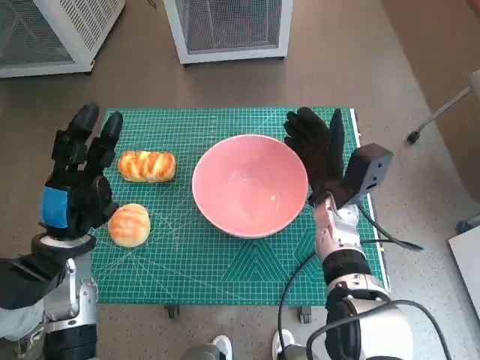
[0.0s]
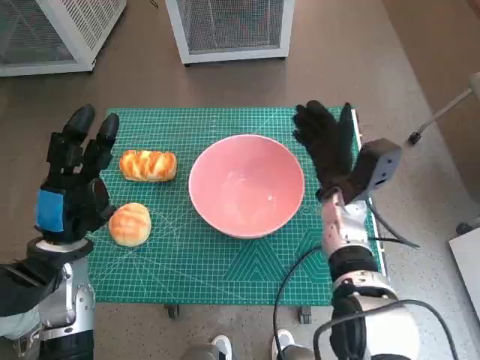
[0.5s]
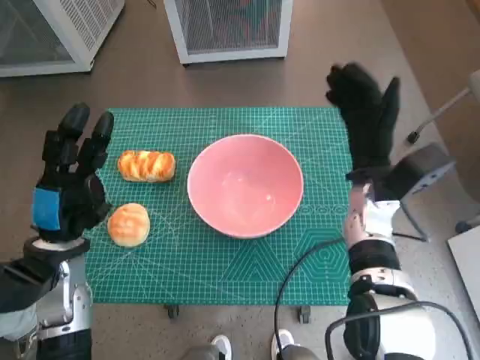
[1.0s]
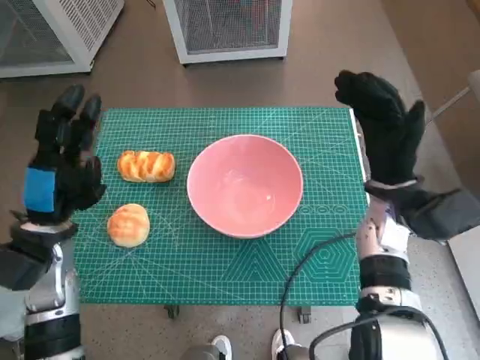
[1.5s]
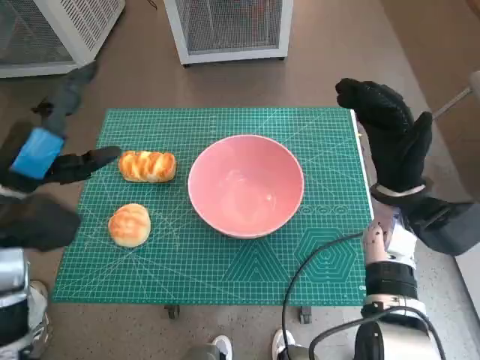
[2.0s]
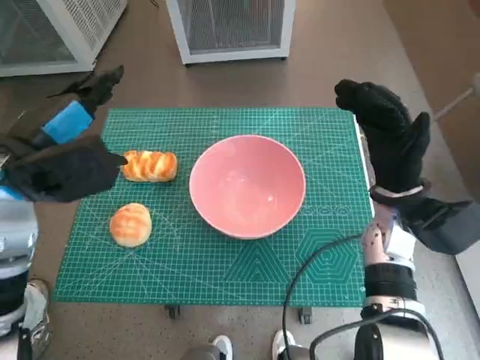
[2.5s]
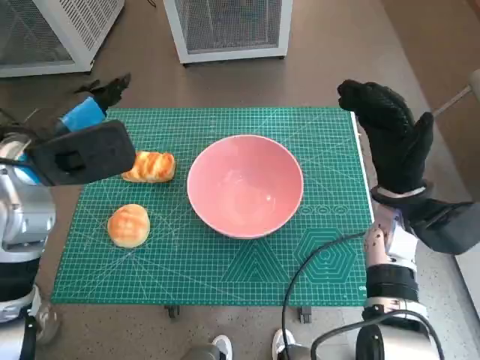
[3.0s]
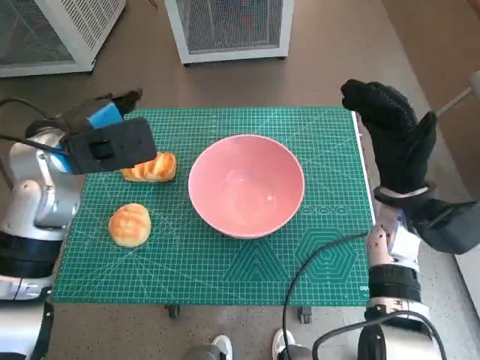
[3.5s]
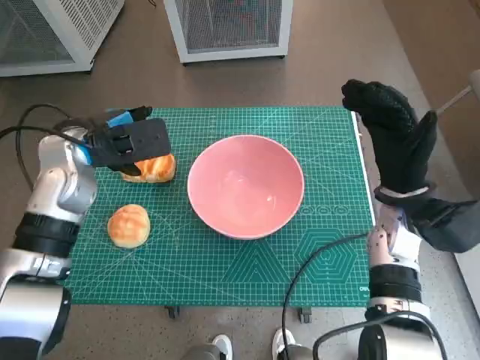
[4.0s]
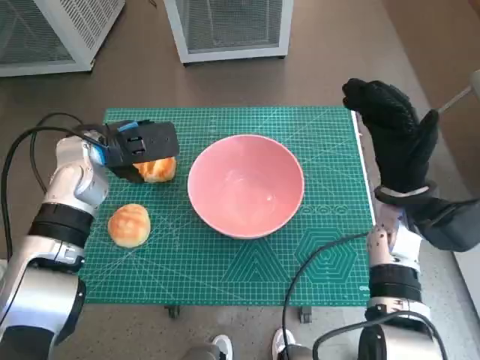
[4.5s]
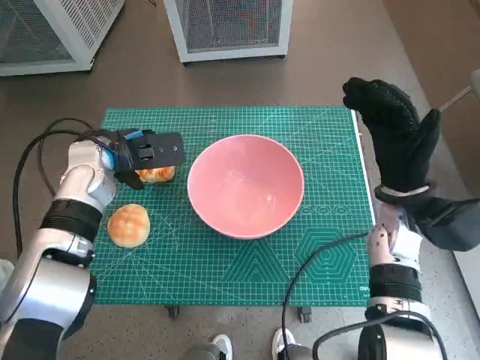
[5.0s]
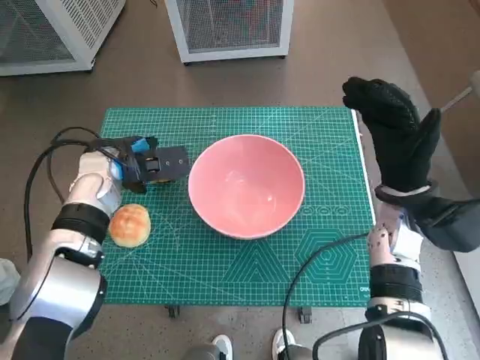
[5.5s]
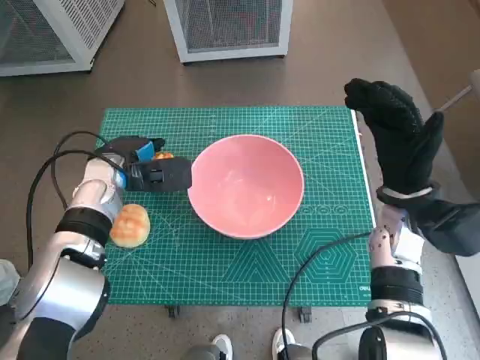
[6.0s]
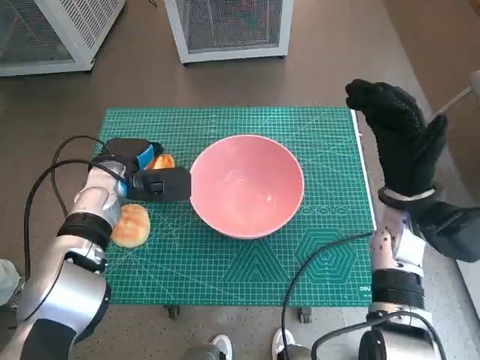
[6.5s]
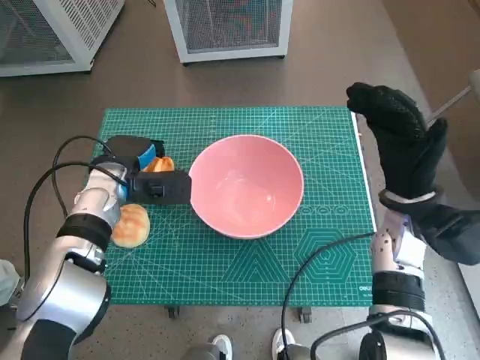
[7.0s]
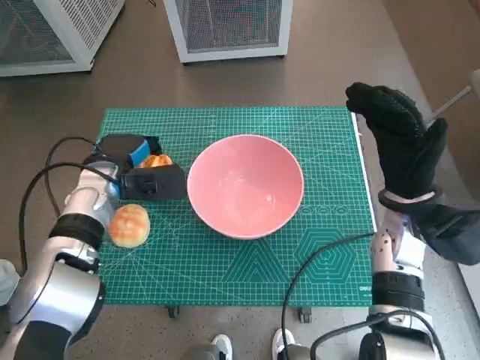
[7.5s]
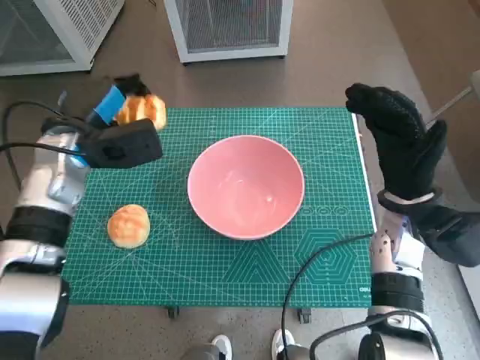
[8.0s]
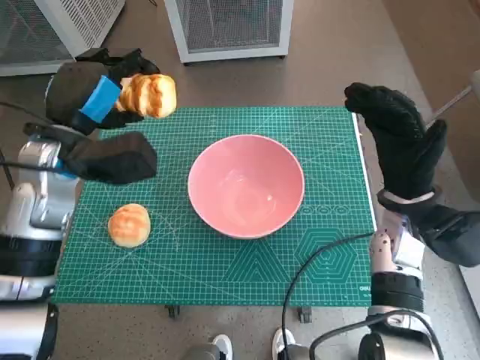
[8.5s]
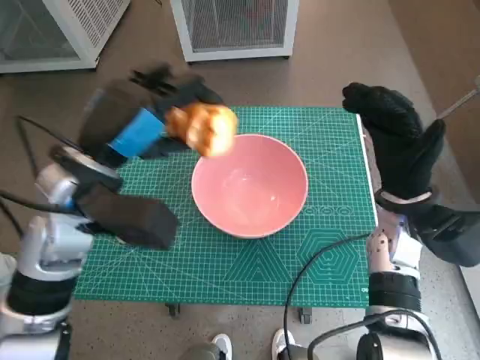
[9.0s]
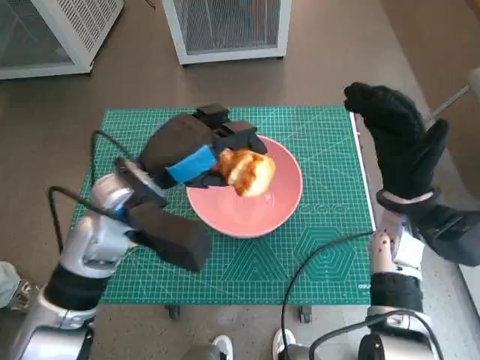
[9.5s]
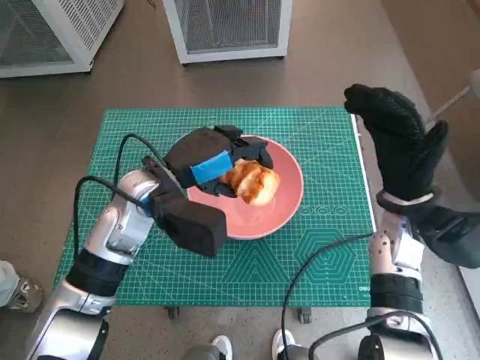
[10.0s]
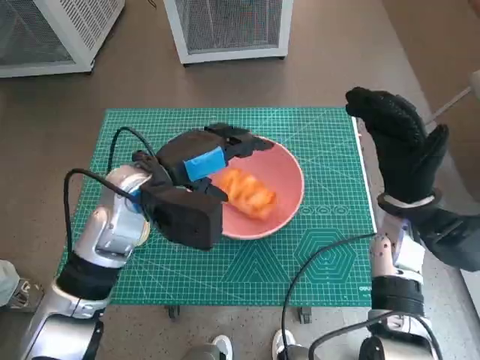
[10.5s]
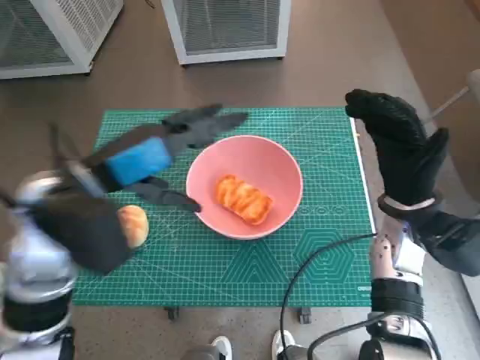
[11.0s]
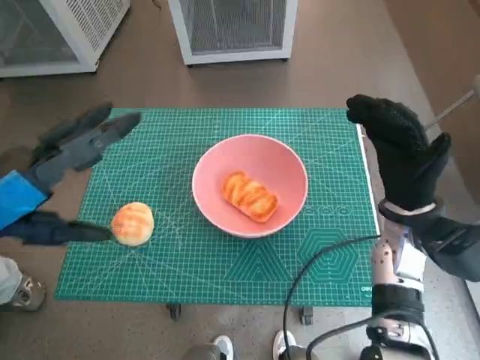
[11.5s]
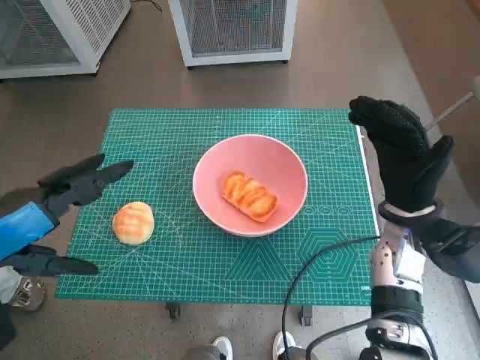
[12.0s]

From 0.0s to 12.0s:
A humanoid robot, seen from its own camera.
Task of the whole recording: Push the bowl into the center of the table and put the bread into the bowl.
Step, from 1.0s to 6.5s: Grasp the long bread with left hand.
Step, from 7.0s to 10.0s: Place the long bread in pink bowl with left hand.
From 0.0s to 2.0s: The right hand goes about 10 cm to the right and upward, while the left hand goes approximately 10 cm upward.
From 2.0s to 4.0s: The left hand goes about 10 cm forward.
From 4.0s to 6.0s: The left hand travels downward by roughly 10 cm.
From 6.0s to 8.0s: The left hand moves roughly 5 cm.
From 8.0s to 10.0s: The left hand goes about 10 cm to the right.
From 10.0s to 12.0s: The left hand moves backward, to the left and upward, roughly 20 cm.

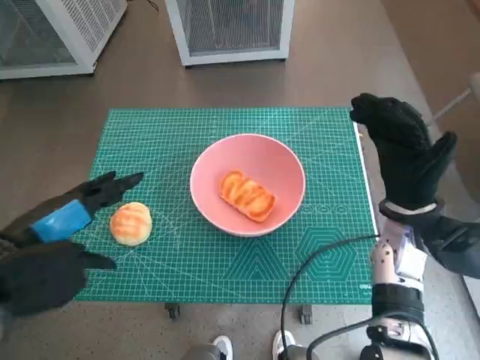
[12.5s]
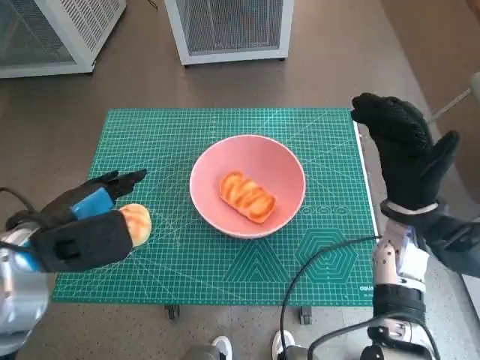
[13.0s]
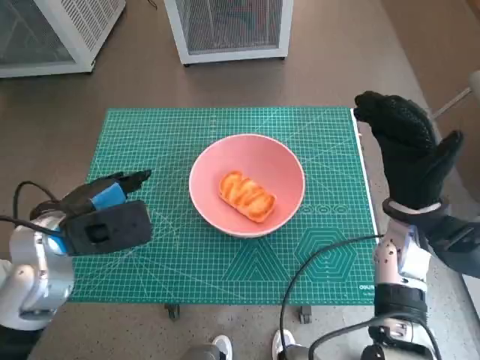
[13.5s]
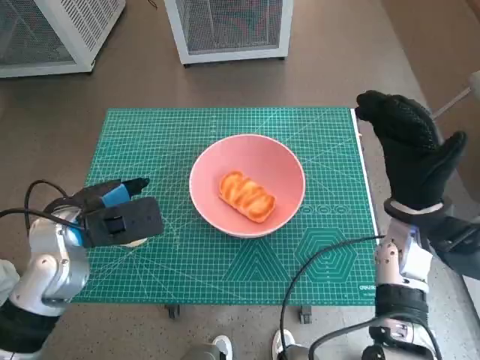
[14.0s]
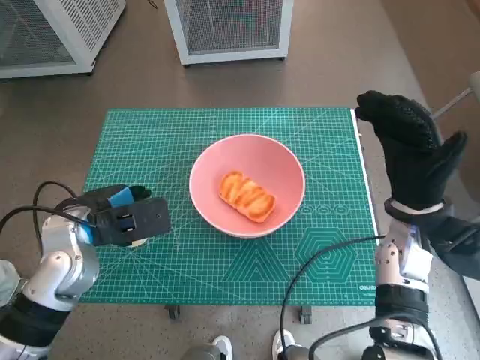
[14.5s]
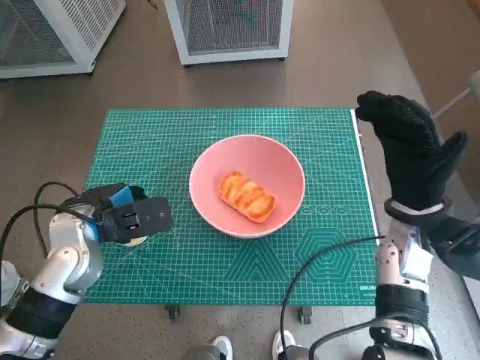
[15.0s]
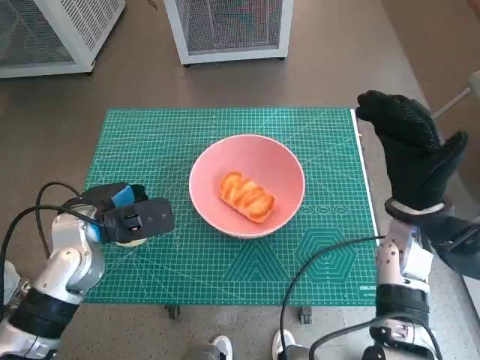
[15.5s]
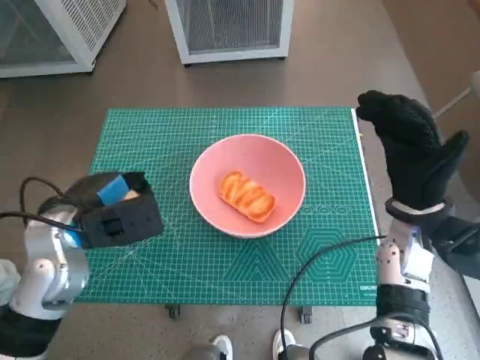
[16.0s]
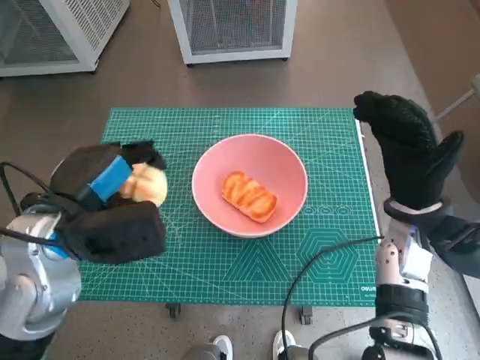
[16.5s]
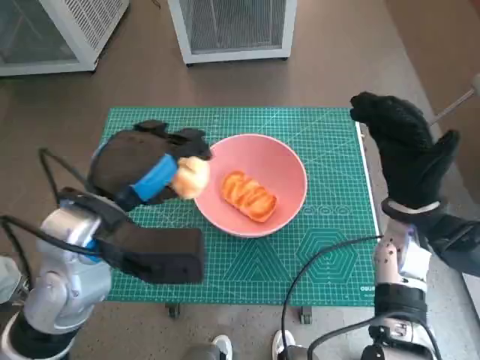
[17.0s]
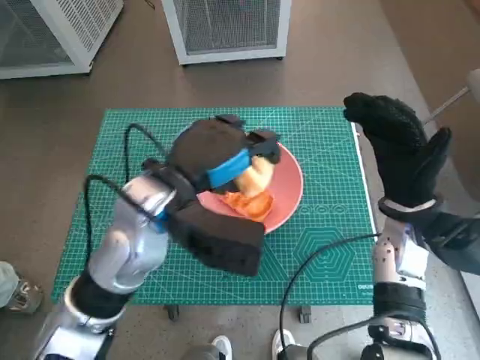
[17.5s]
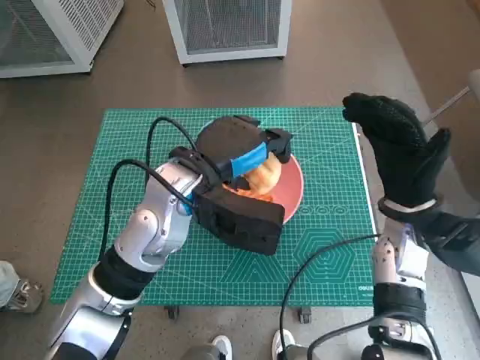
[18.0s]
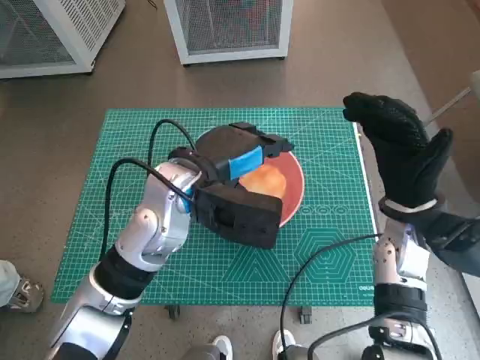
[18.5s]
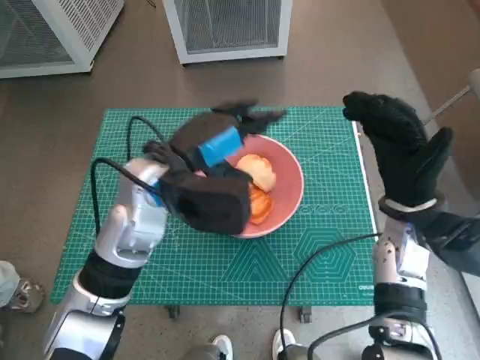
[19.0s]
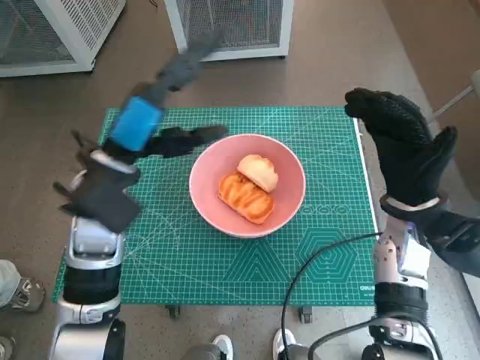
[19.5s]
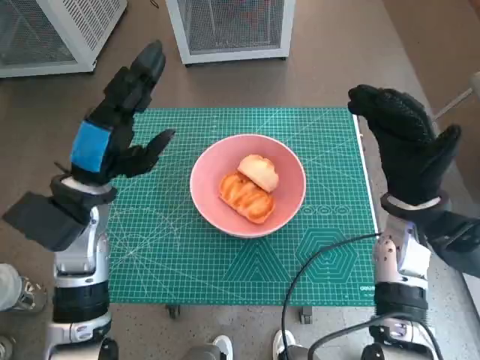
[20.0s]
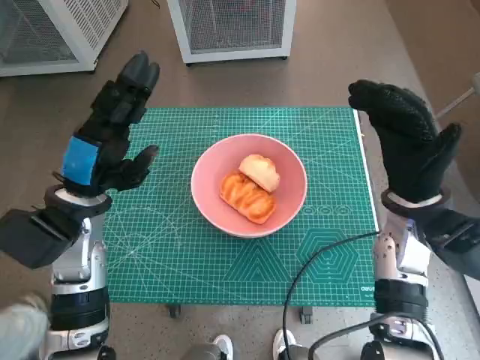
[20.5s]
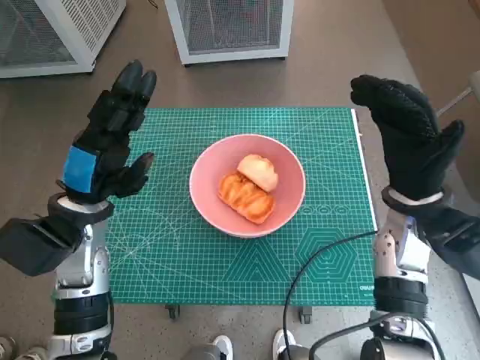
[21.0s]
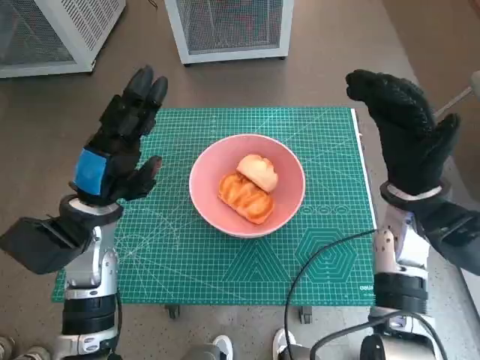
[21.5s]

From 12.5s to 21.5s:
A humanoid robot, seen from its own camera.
Task of the whole recording: Push the bowl into the center of the table and put the bread into the bowl.
Step, from 12.5s to 15.5s: Grasp the round bread with left hand.
Step, from 16.0s to 18.5s: Place the round bread in pink bowl with left hand.
From 12.5s to 14.5s: The left hand is displaced forward and downward by roughly 10 cm.
From 14.5s to 17.0s: The left hand moves upward and to the right, some 10 cm.
From 17.0s to 19.5s: The left hand heads forward, covering approximately 5 cm, and travels to the right and back again, approximately 10 cm each way.
From 19.5s to 21.5s: The left hand shifts approximately 5 cm downward.

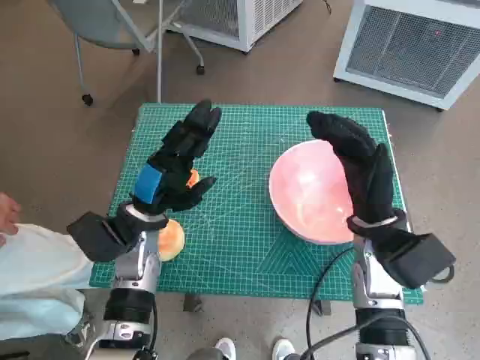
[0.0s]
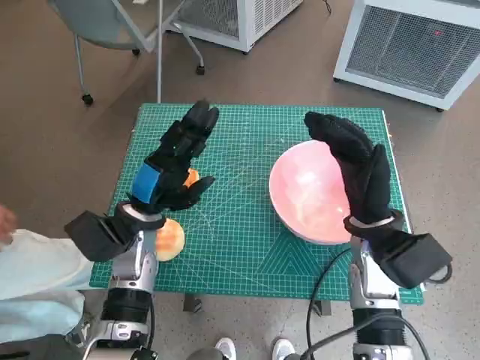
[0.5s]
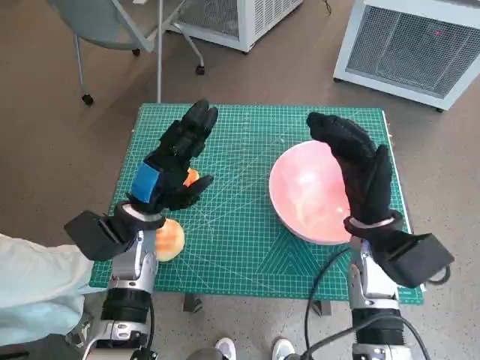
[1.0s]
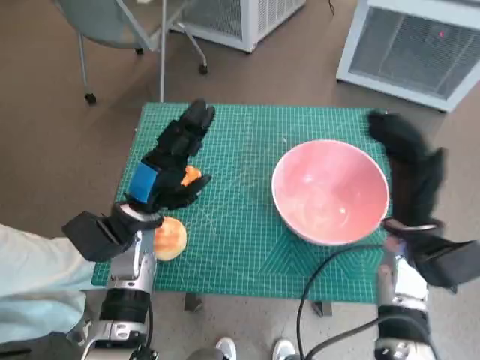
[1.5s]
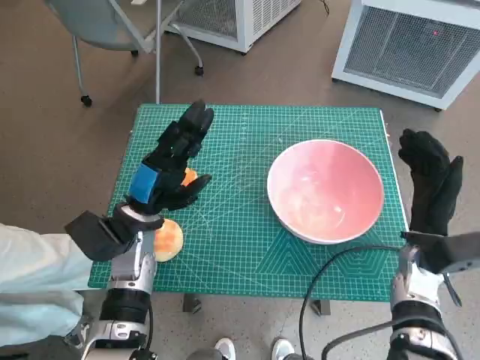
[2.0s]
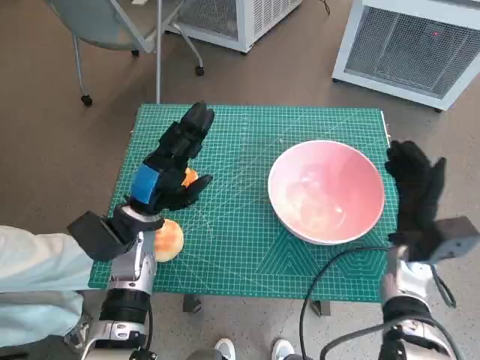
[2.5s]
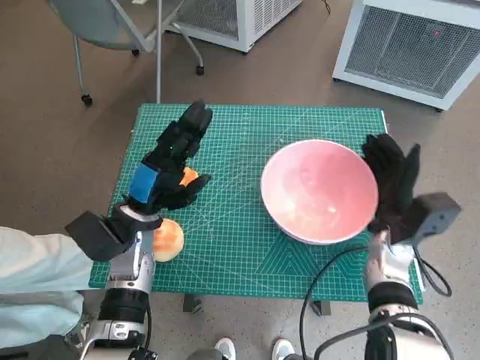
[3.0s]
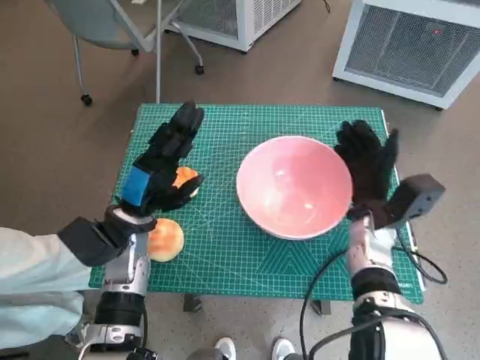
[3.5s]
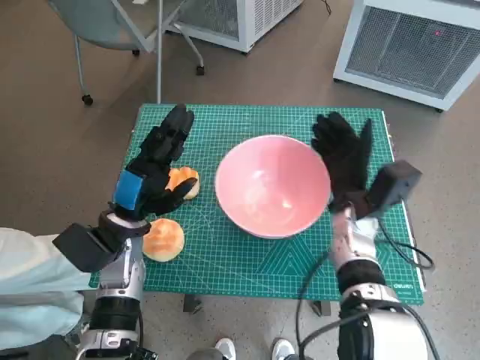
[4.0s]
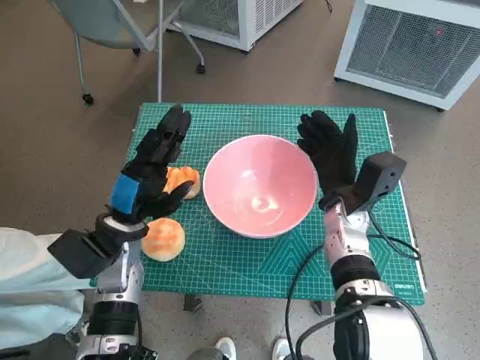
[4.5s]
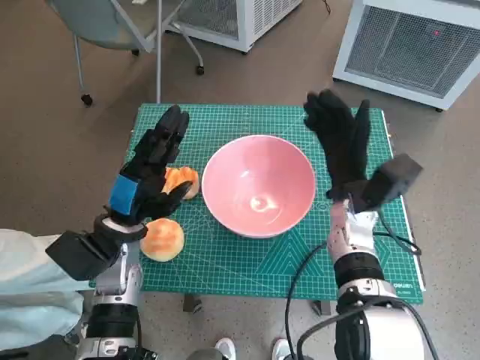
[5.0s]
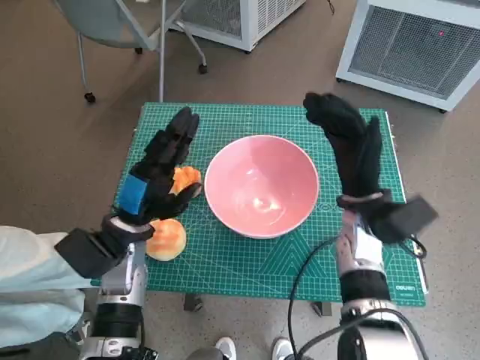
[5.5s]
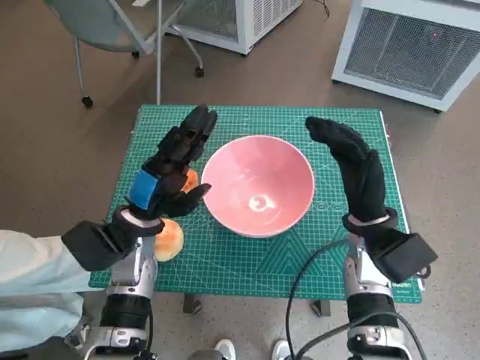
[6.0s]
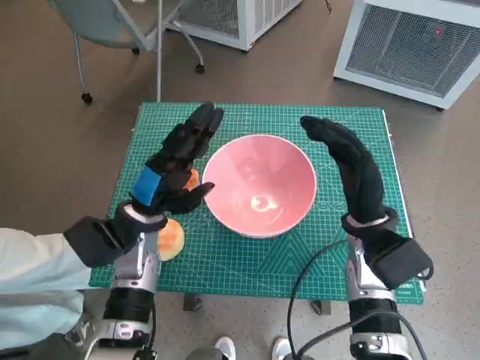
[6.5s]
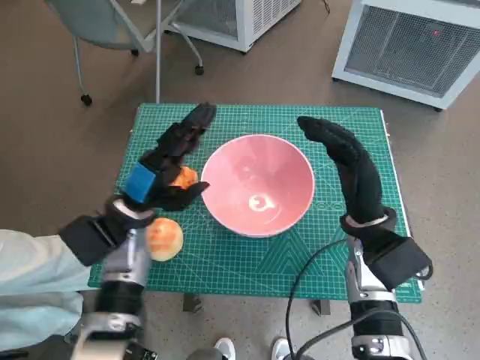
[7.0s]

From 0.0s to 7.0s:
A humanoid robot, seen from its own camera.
Task of the whole recording: Push the bowl into the center of the table and put the bread into the bowl.
Step, from 0.0s to 4.5s: Move the pink bowl to the center of table with right hand.
From 2.0s to 3.5s: The right hand heads to the left, covering approximately 5 cm.
From 3.5s to 5.0s: The right hand shifts by roughly 5 cm.
From 5.0s to 7.0s: The right hand goes approximately 5 cm backward.
